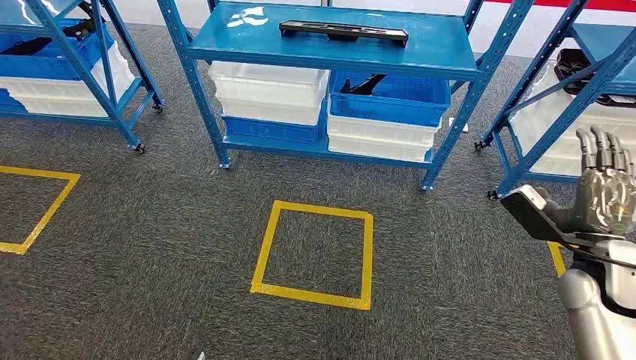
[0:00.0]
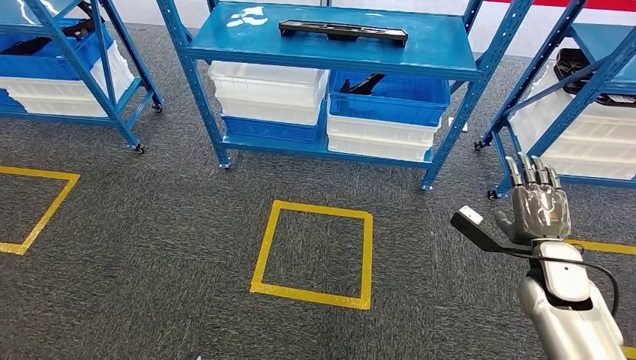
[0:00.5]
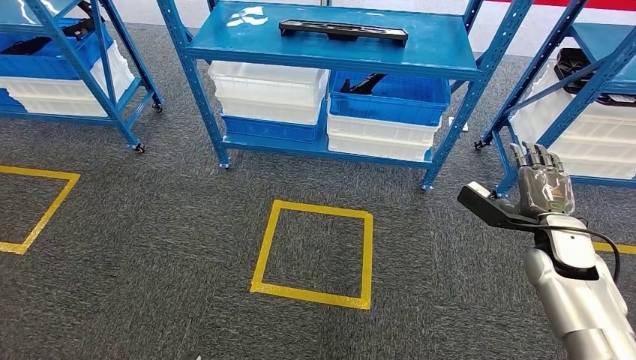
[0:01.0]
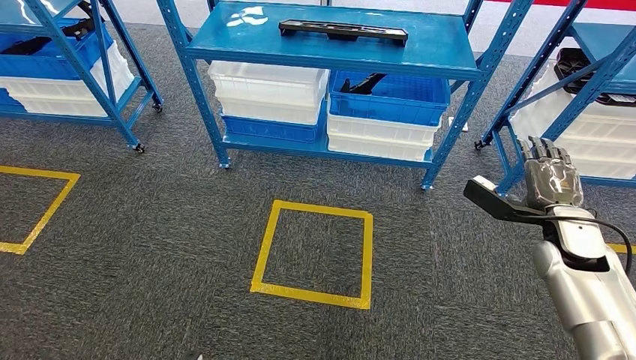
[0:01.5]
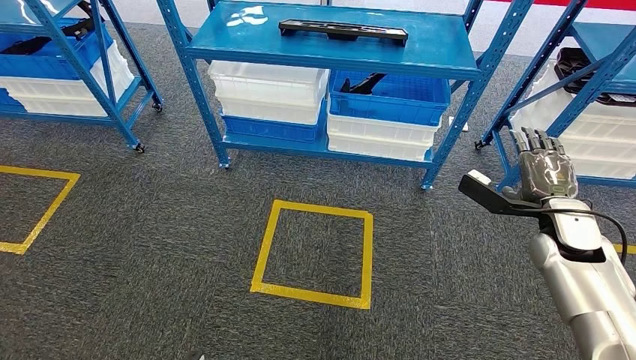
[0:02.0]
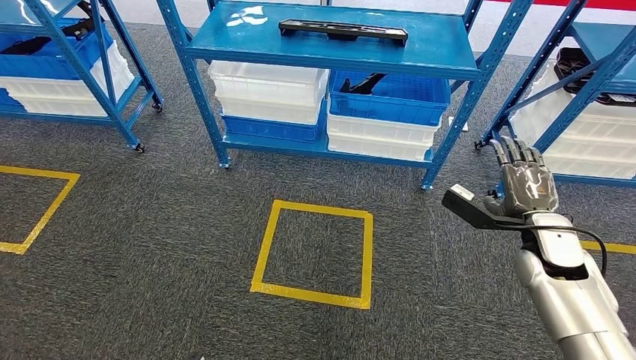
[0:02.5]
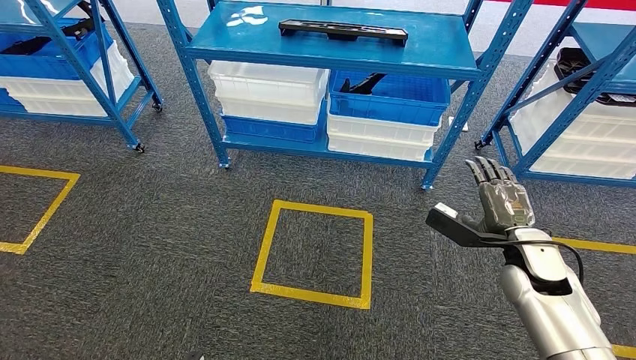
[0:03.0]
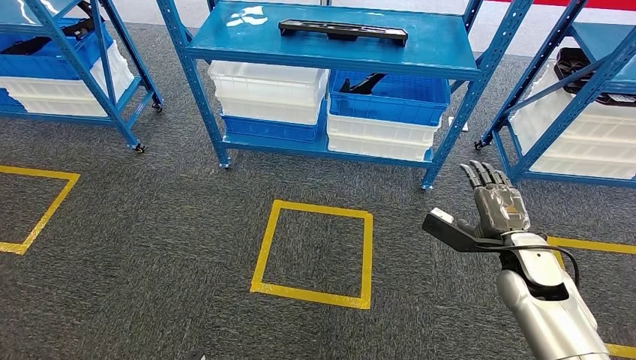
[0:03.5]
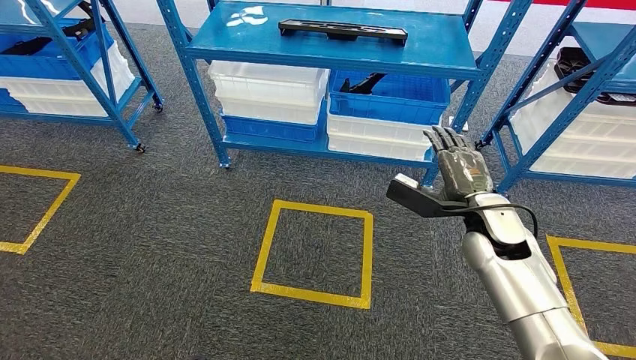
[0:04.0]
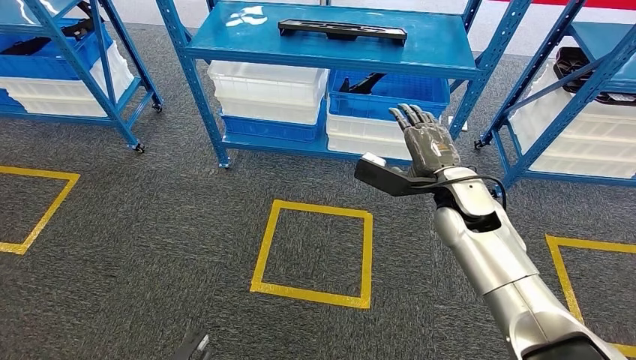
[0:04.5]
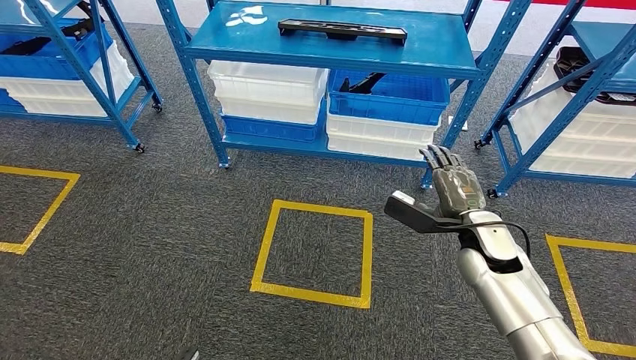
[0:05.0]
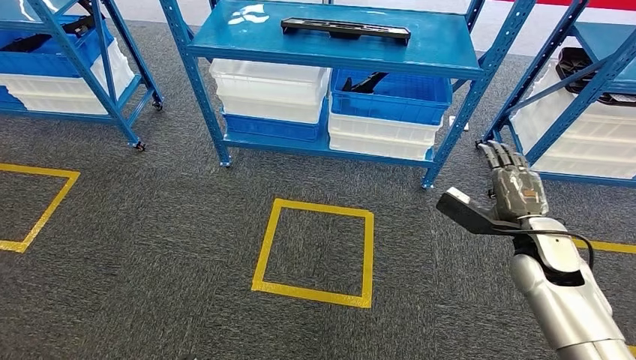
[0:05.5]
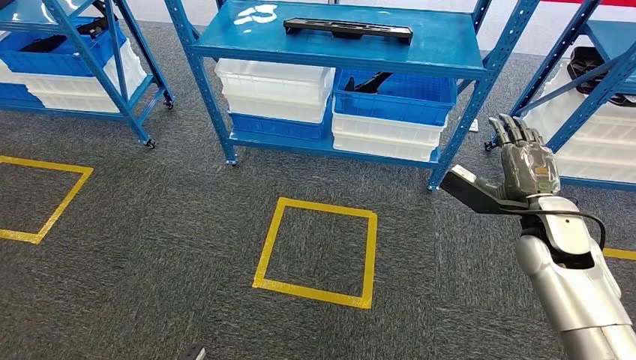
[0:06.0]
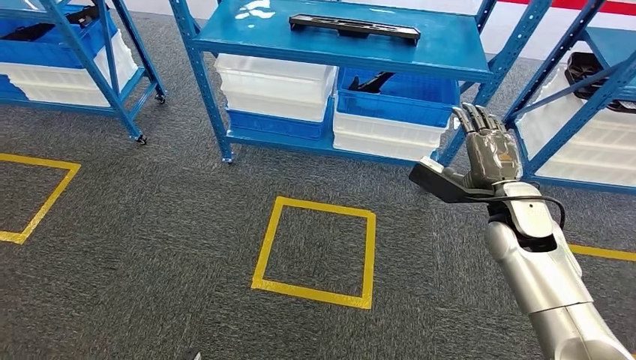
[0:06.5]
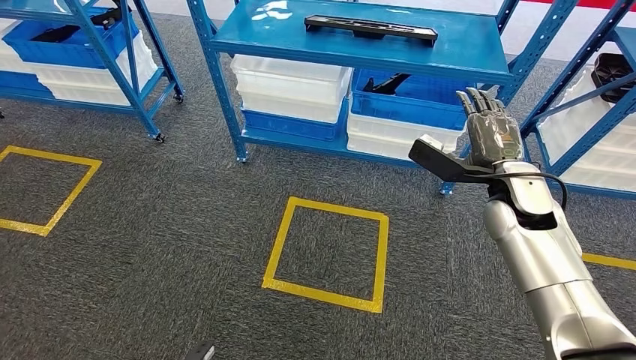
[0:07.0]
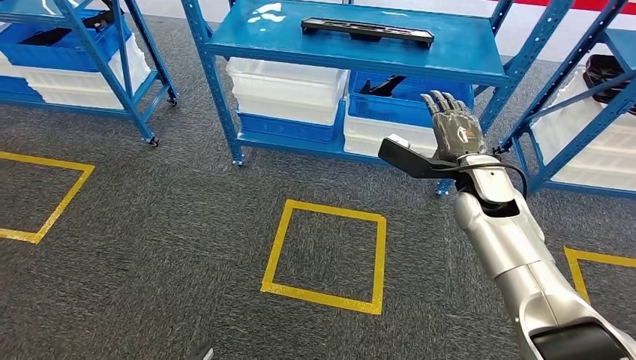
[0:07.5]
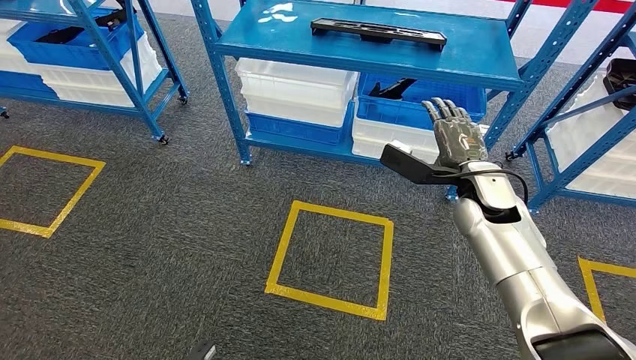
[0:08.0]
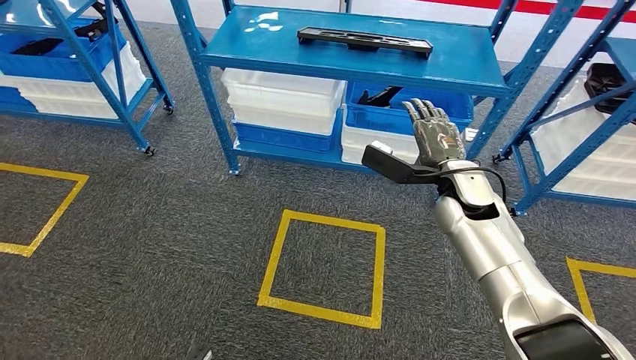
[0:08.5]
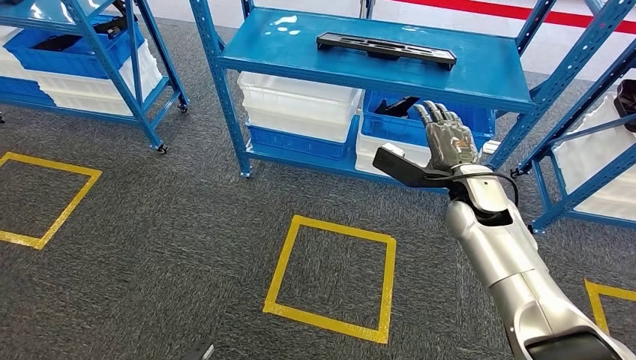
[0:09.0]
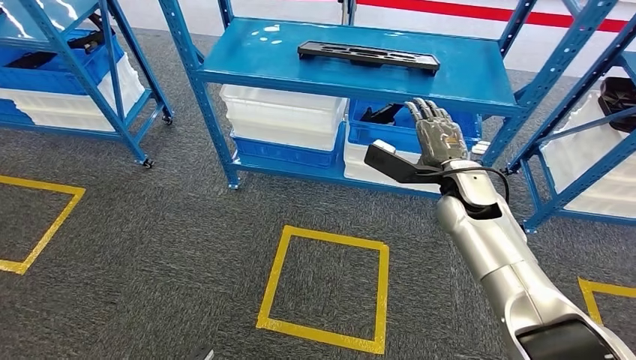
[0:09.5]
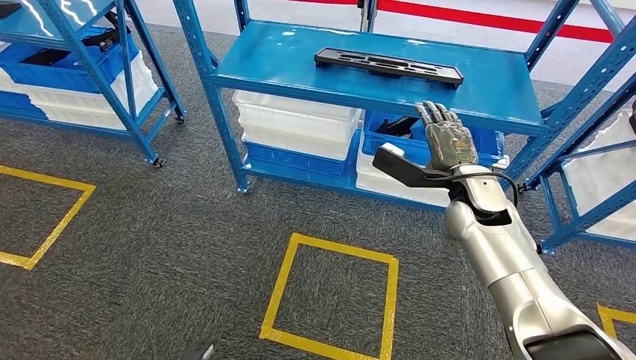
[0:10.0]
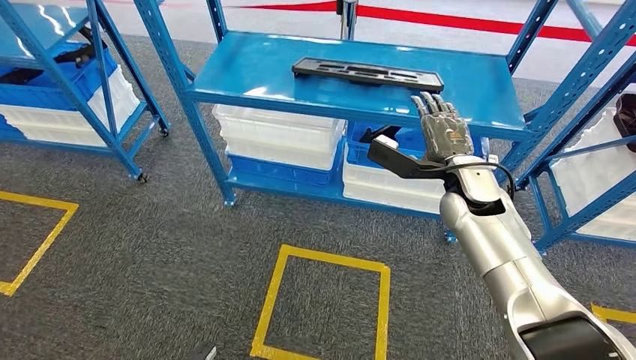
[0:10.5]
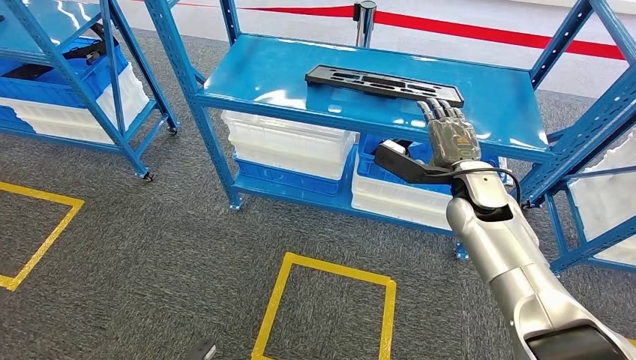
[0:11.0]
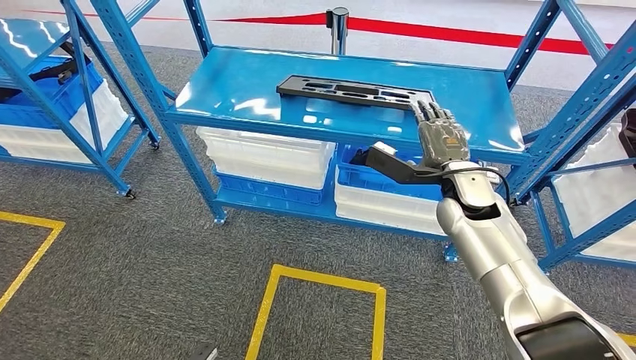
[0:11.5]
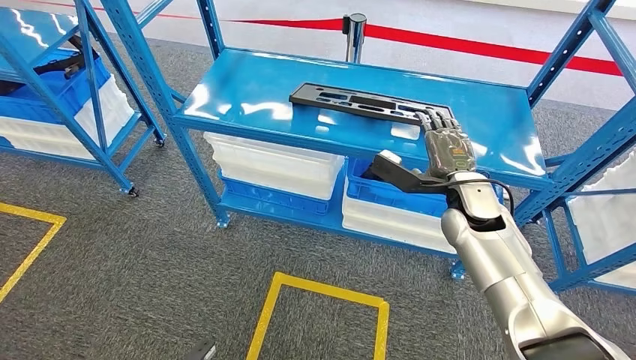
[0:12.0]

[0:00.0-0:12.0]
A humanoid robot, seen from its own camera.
0:02.0 to 0:04.0: The right hand heads to the left, covering roughly 10 cm.

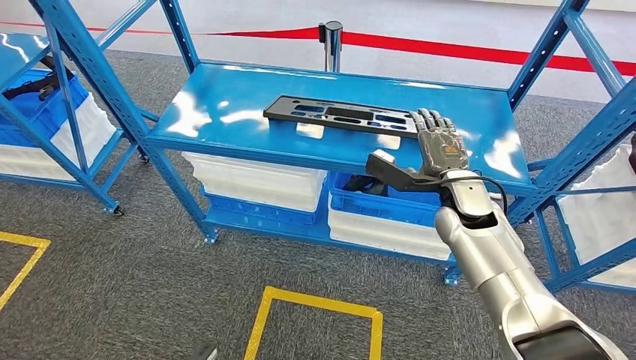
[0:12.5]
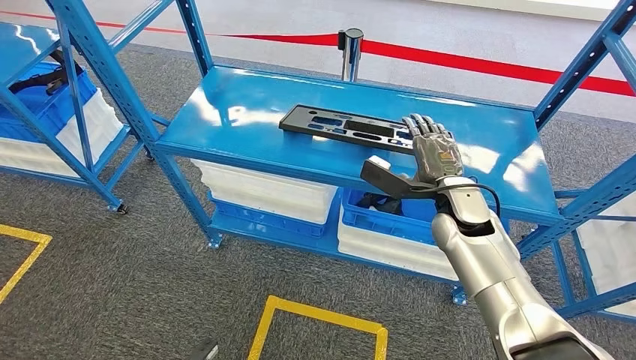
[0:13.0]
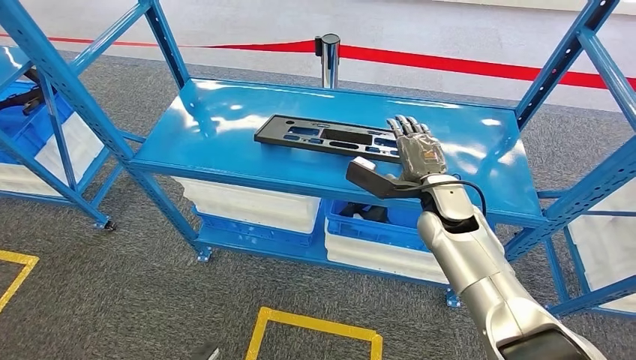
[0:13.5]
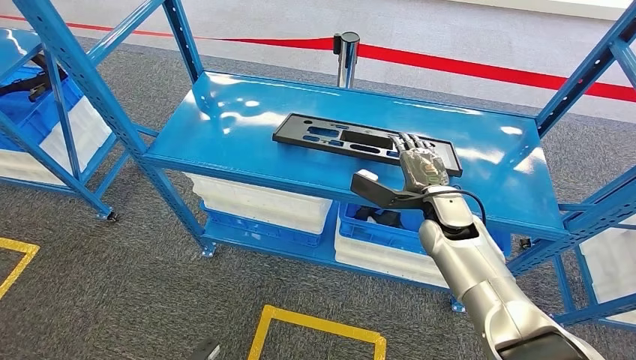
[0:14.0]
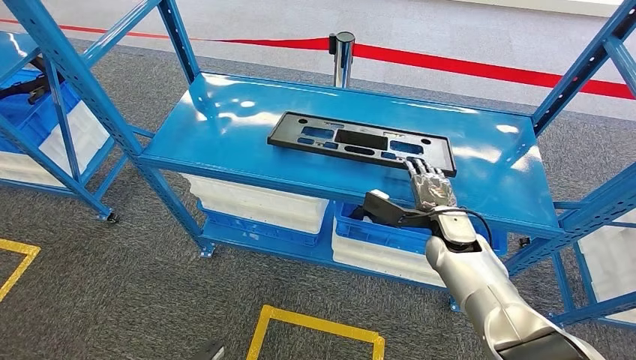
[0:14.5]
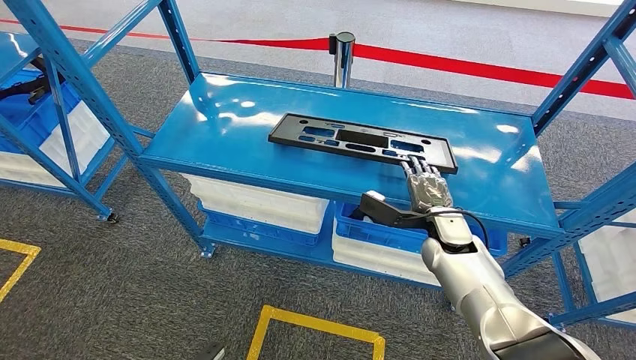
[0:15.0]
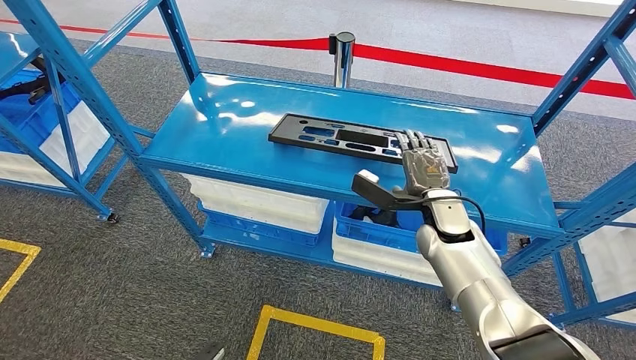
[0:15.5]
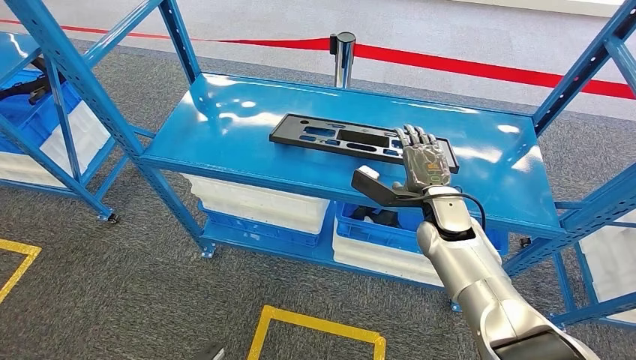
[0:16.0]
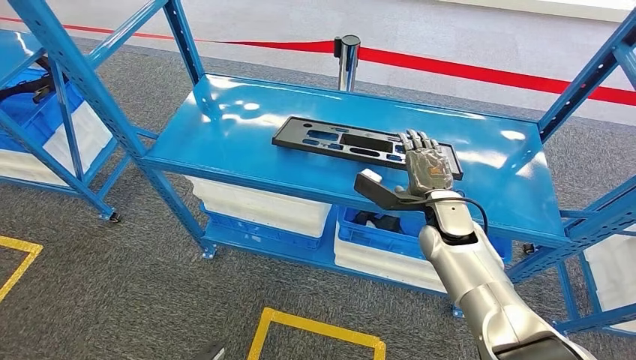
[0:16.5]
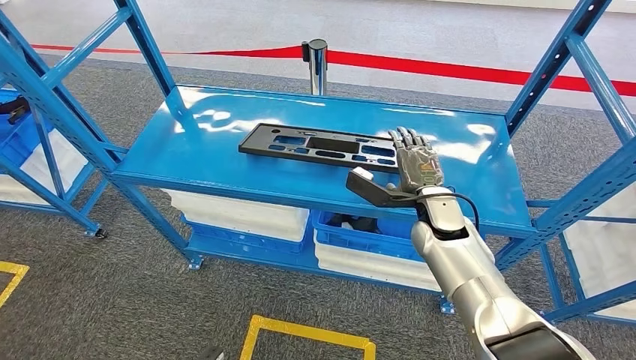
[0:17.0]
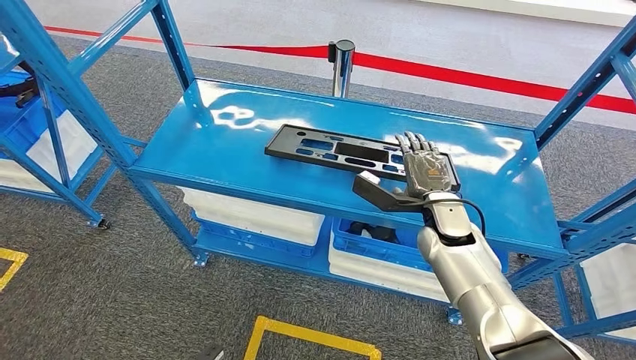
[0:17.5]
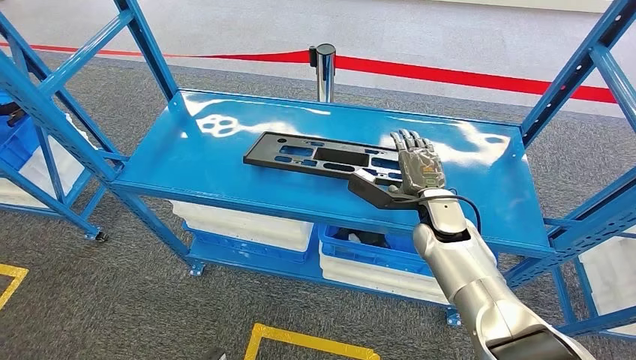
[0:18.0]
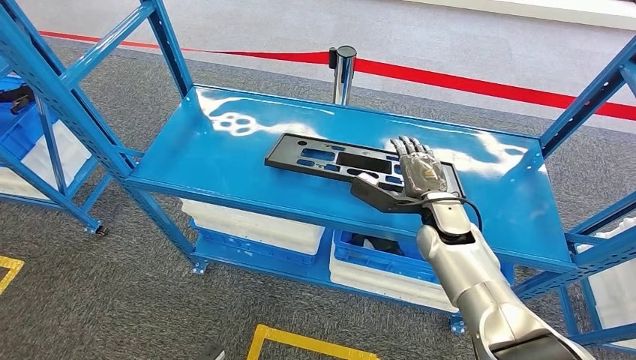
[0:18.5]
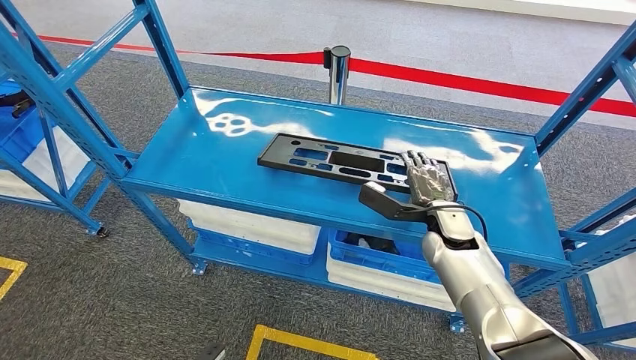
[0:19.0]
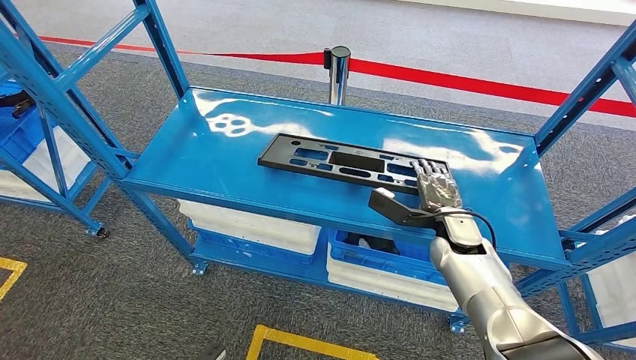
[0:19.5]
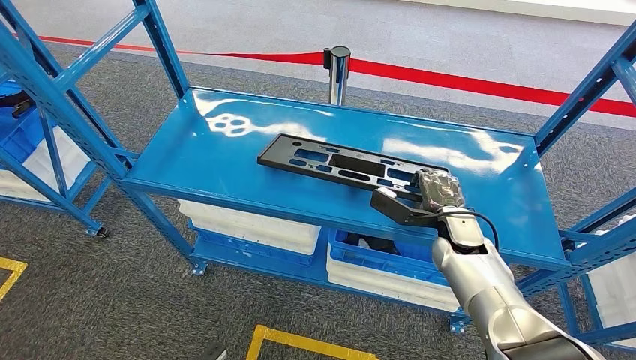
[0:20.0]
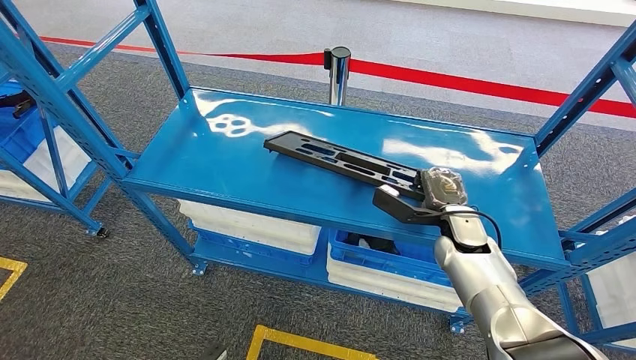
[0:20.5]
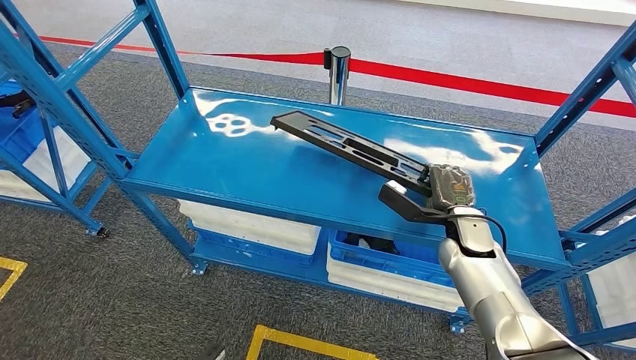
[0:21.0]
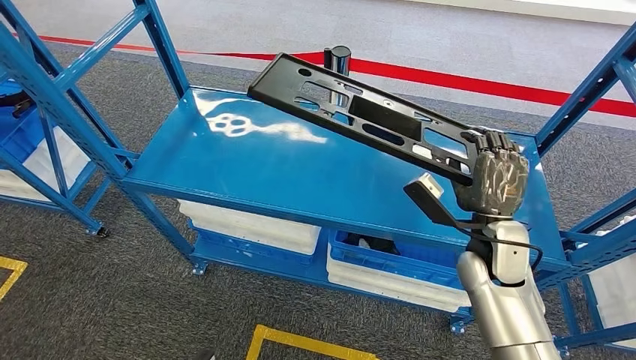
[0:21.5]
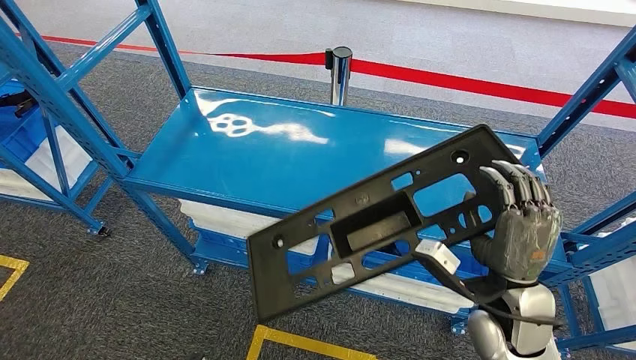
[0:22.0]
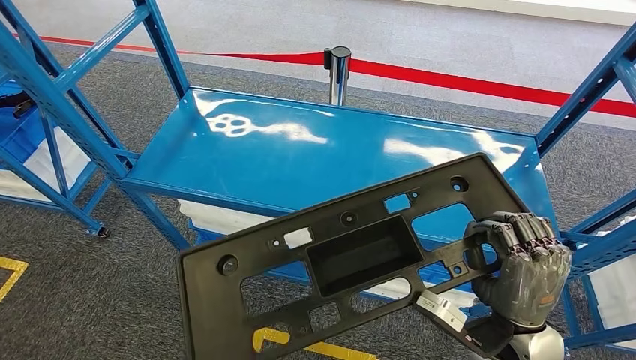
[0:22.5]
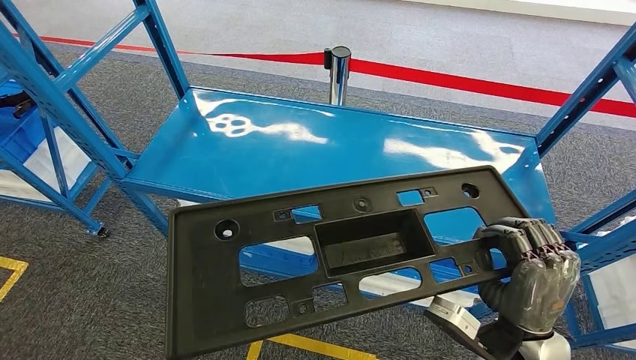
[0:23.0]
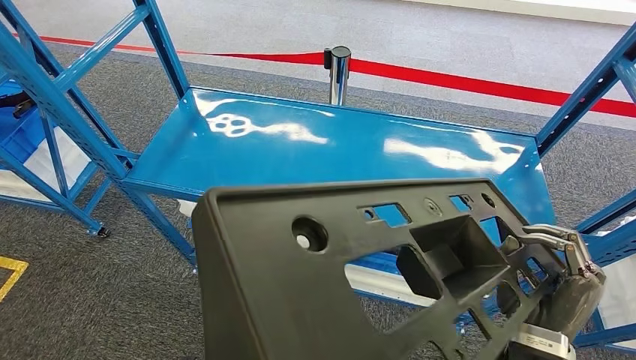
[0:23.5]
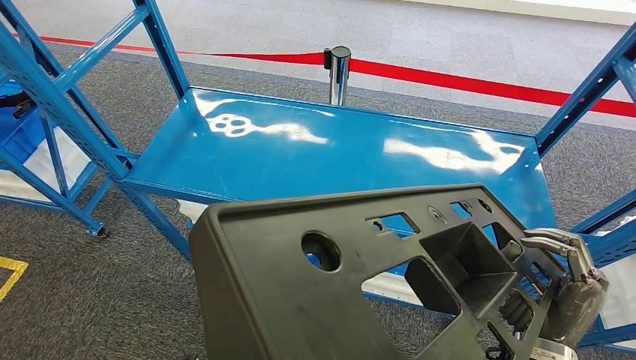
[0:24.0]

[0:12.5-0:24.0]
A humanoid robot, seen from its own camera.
Step, 0:12.5 to 0:22.0: Pick up the large material from the shelf.
0:18.5 to 0:20.0: The right hand shifts by some 5 cm.
